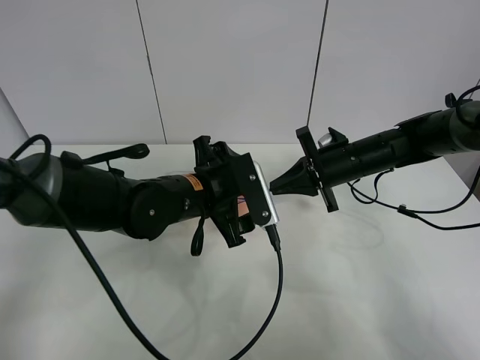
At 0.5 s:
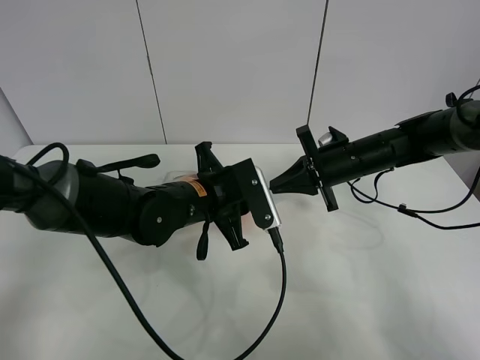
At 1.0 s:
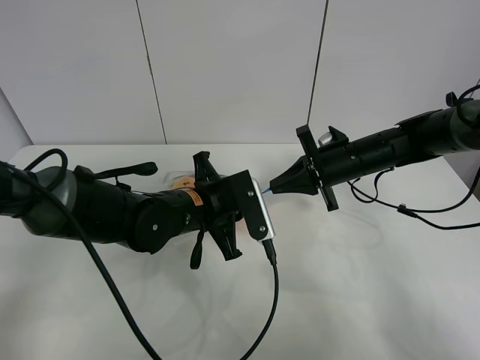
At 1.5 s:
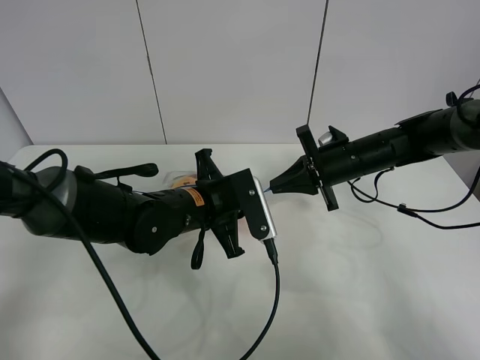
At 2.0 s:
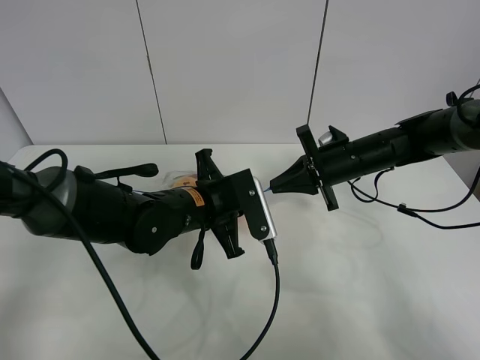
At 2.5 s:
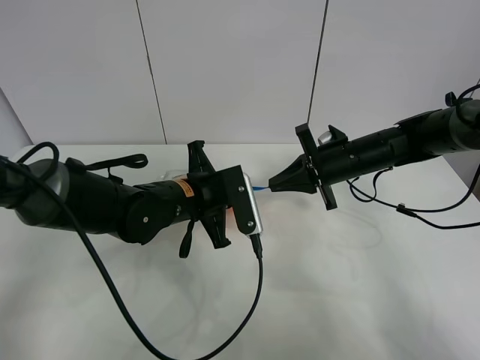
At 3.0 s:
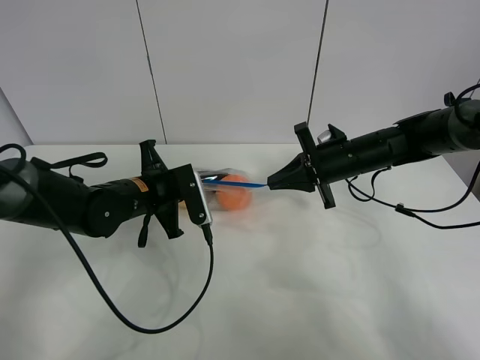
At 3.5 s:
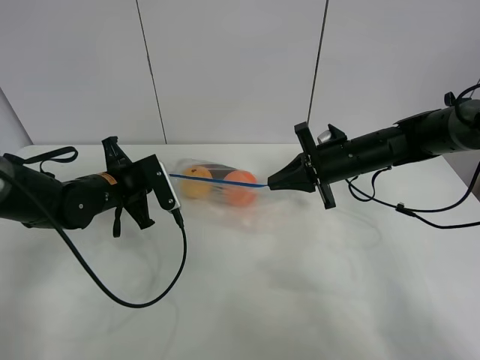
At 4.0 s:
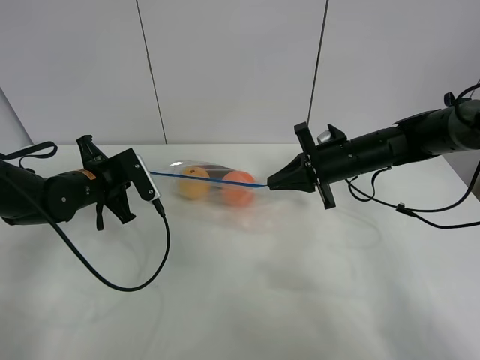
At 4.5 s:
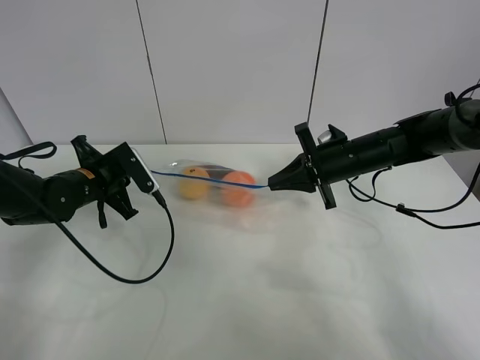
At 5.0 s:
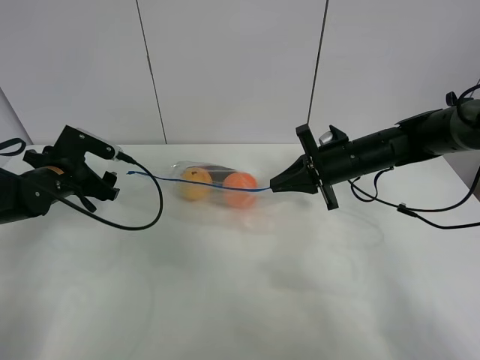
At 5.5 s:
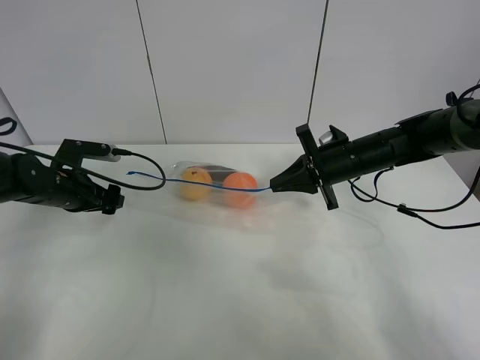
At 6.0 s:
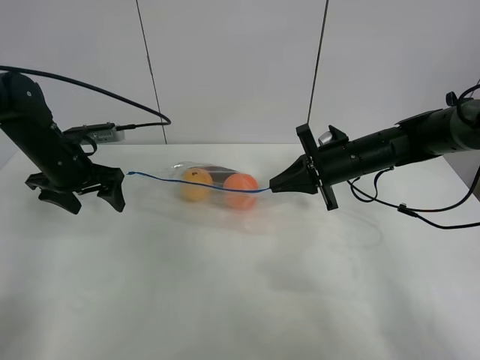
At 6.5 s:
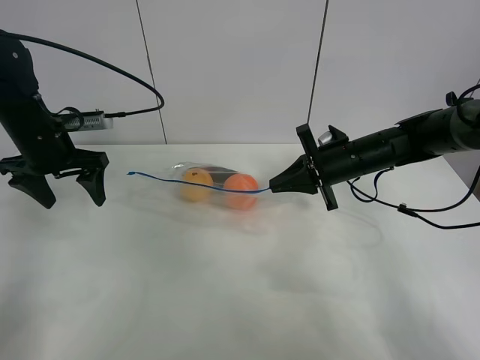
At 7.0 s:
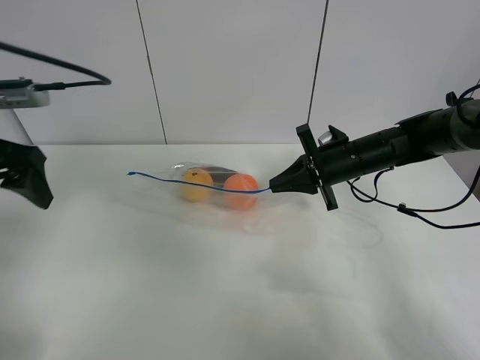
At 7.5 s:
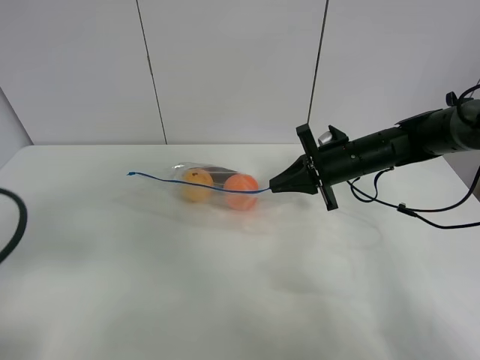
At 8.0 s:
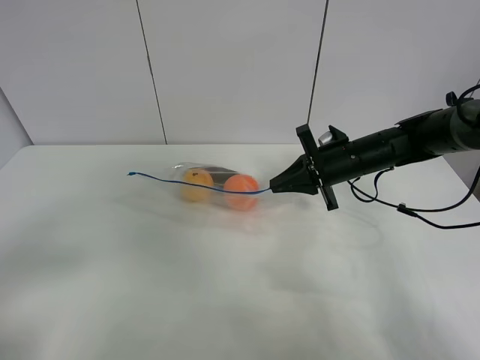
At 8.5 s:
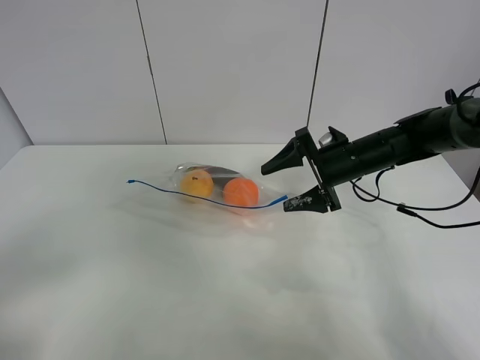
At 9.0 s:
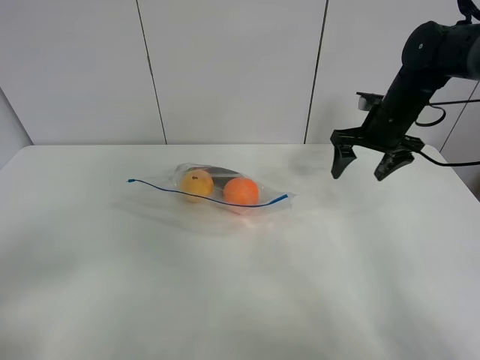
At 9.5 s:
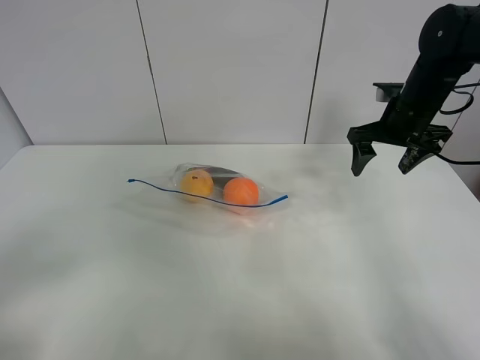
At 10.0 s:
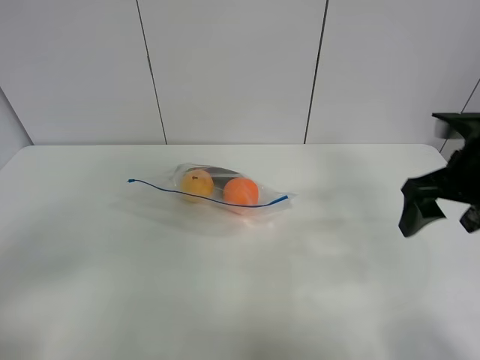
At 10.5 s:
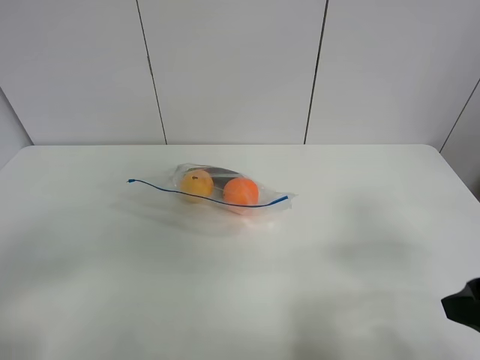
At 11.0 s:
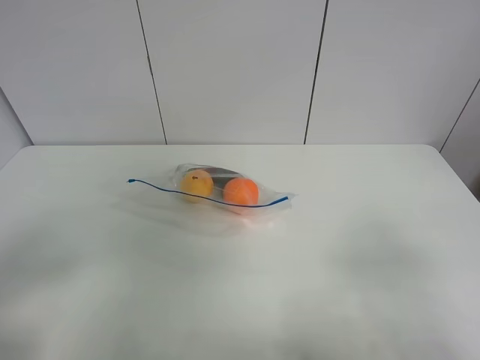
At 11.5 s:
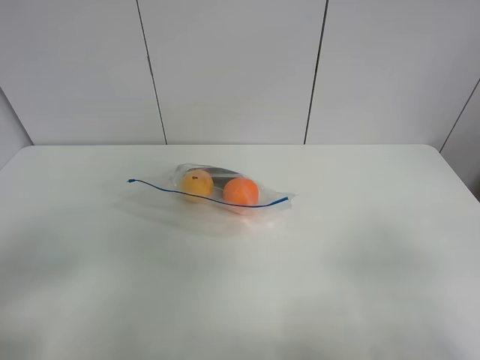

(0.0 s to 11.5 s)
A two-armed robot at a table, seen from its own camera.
Step, 0.0 s - 4.5 s: Pull the fruit bag with left gripper.
0.0 s - 2.0 s: The left gripper closes its fingers.
2.0 s - 4.0 s: The left gripper moves to the left, some 20 cm.
4.0 s - 6.0 s: The left gripper changes place by some 5 cm, and opens its fingers.
6.0 s - 7.5 s: The left gripper moves backward, some 25 cm.
7.5 s - 9.5 s: The left gripper shifts roughly 10 cm backward; the right gripper moves upward and to the right, roughly 10 cm, and opens its fingers.
9.5 s - 11.5 s: The right gripper heads backward, covering roughly 40 cm.

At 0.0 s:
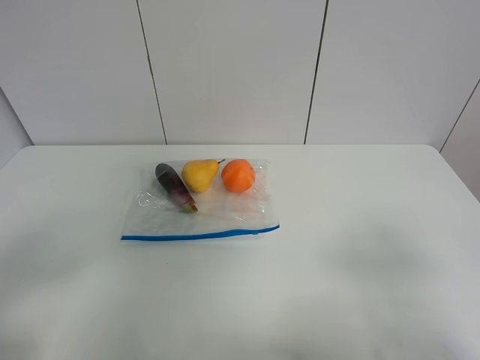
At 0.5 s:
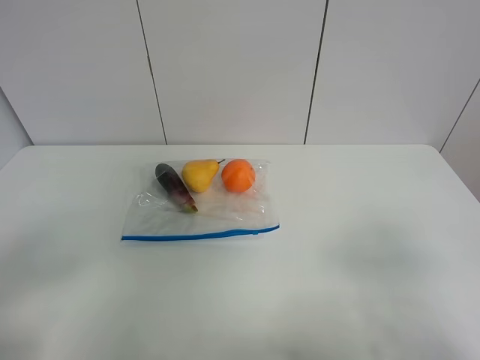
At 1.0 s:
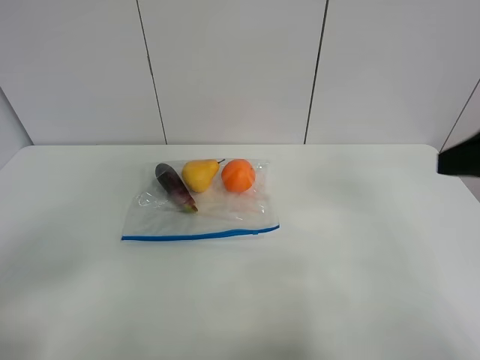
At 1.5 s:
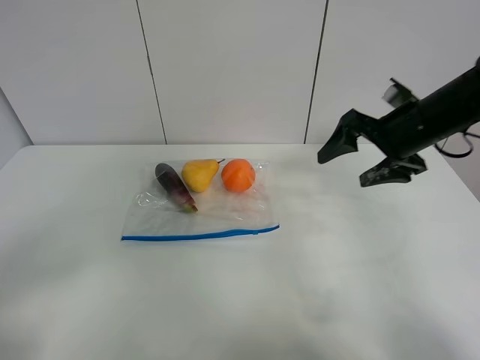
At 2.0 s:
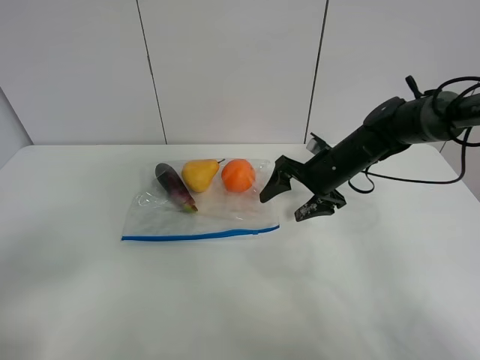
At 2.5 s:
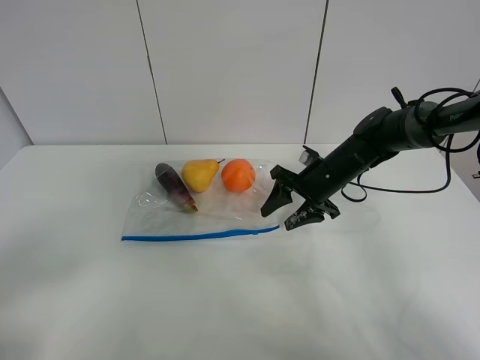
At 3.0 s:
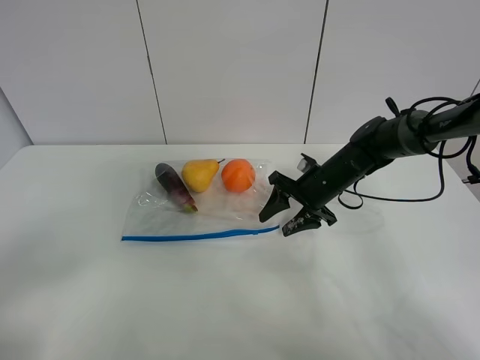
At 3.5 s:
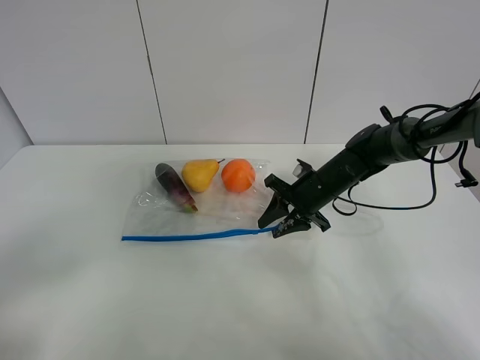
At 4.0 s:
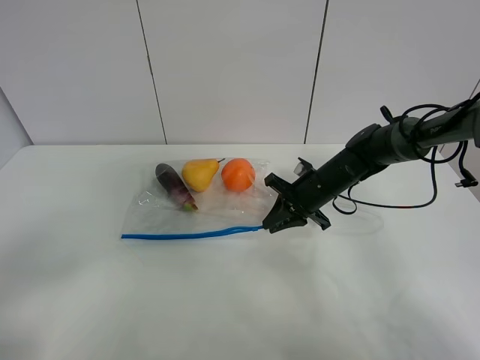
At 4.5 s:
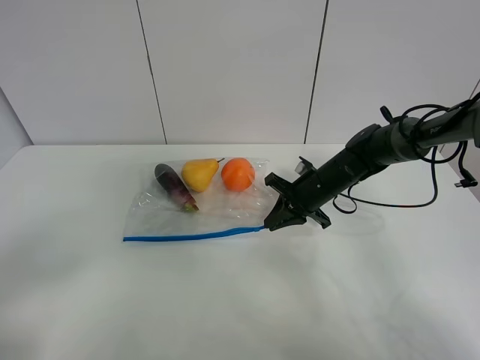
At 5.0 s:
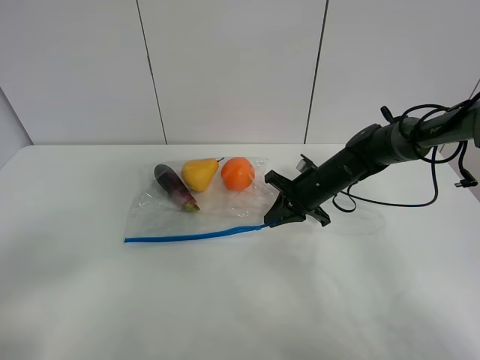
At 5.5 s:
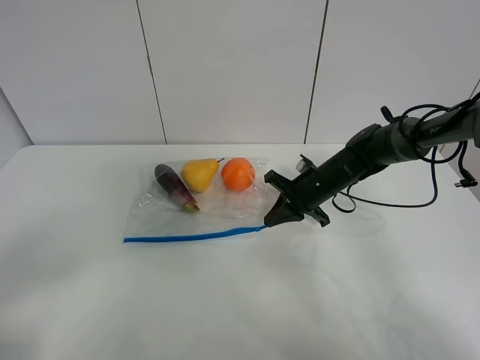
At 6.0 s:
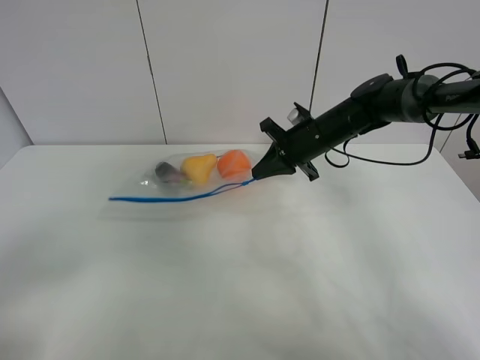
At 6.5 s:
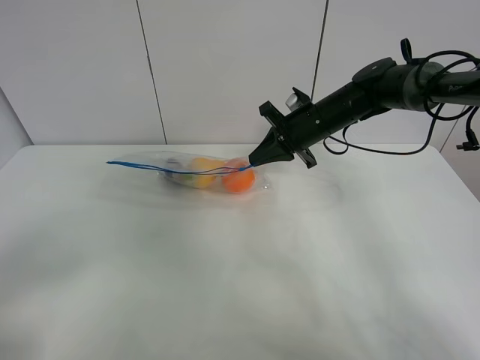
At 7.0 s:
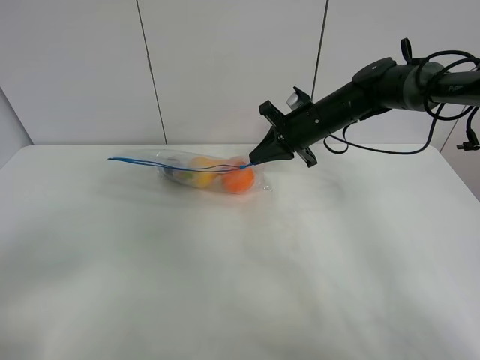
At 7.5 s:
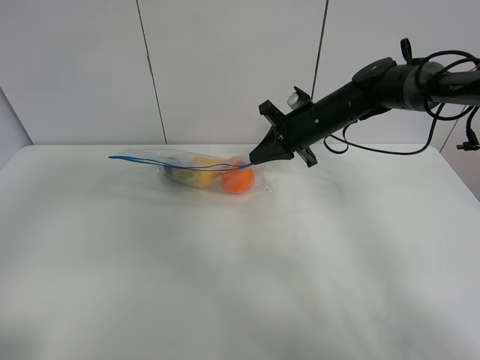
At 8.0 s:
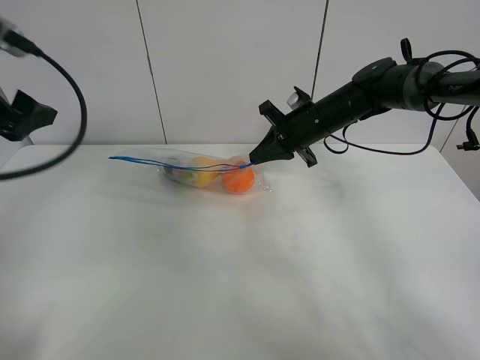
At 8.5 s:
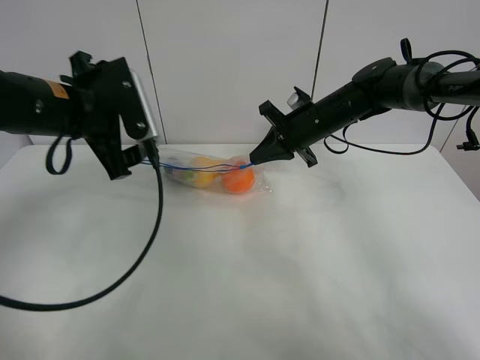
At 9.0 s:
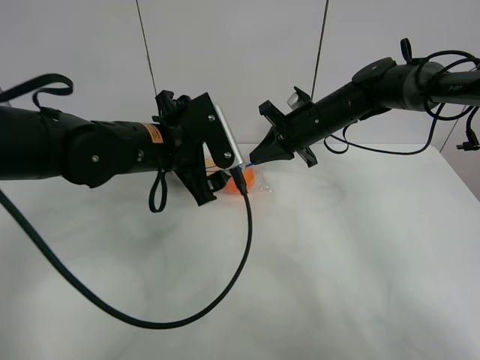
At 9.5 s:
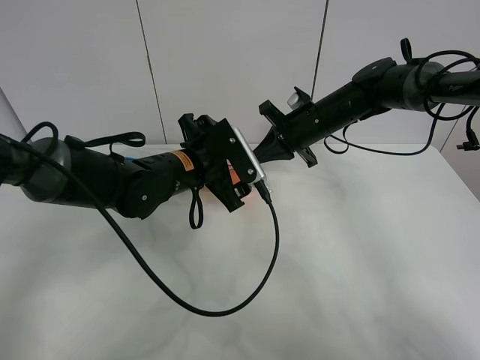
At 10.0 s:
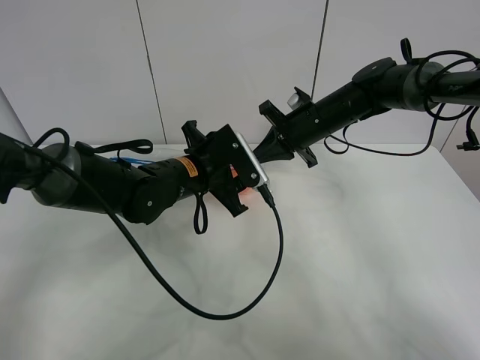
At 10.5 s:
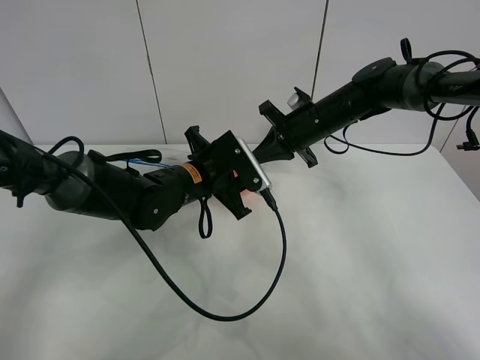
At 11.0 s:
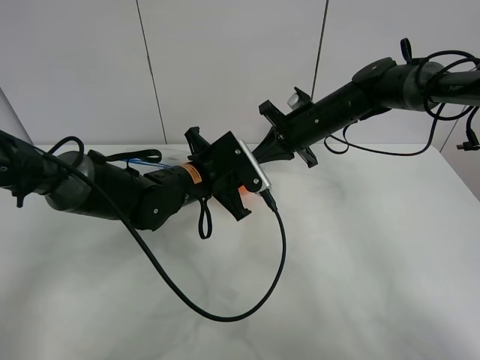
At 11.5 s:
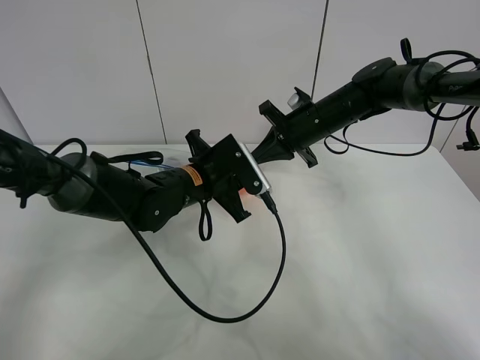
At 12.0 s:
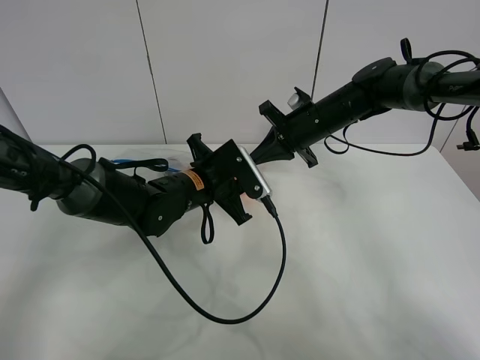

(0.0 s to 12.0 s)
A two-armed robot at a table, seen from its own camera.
Step, 0.0 s - 5.0 s: Grasp the fruit bag with right gripper.
Step, 5.5 s - 6.5 s: Lift the fruit bag with your right gripper.
0.0 s - 2.0 s: The right gripper travels forward by approximately 40 cm.
2.0 s - 4.0 s: The right gripper closes.
4.0 s - 6.0 s: The right gripper is displaced upward by roughly 10 cm.
6.0 s - 8.0 s: The left gripper shifts about 25 cm forward.
8.0 s - 10.0 s: The left gripper is displaced to the right and downward by about 30 cm, and closes up.
10.0 s - 12.0 s: The grippers make only small movements.

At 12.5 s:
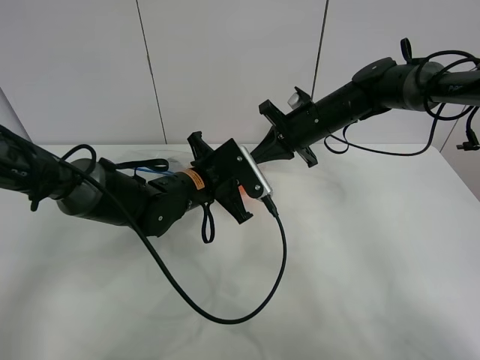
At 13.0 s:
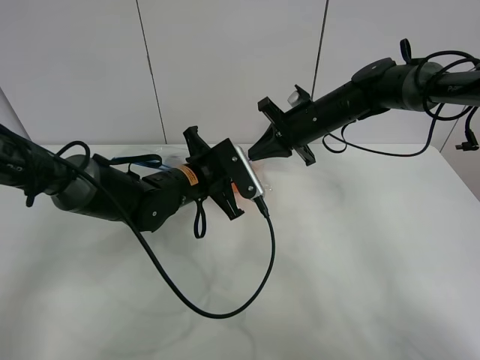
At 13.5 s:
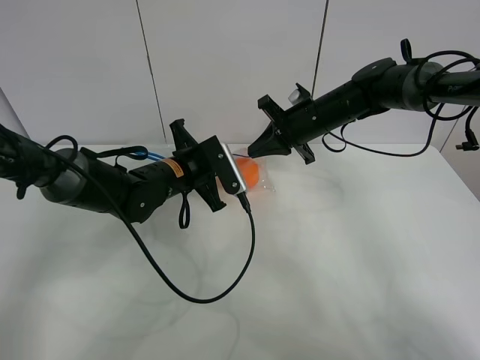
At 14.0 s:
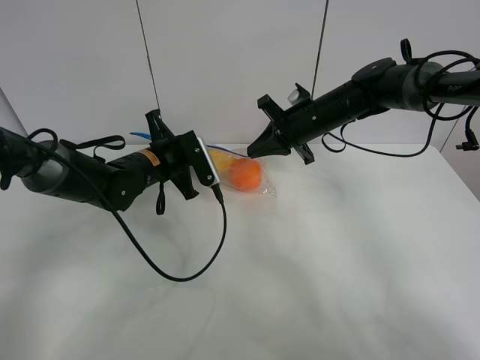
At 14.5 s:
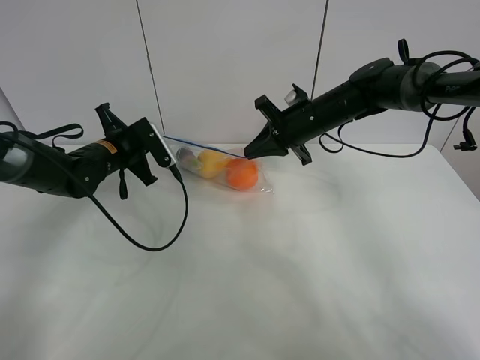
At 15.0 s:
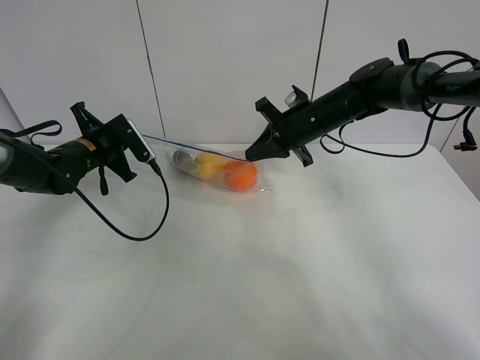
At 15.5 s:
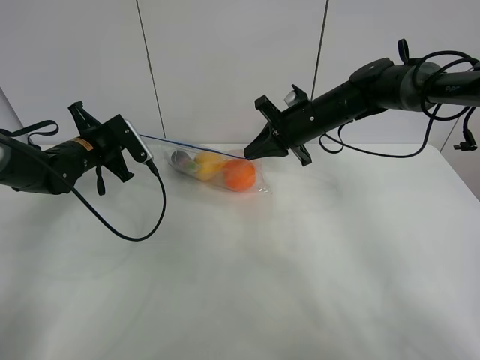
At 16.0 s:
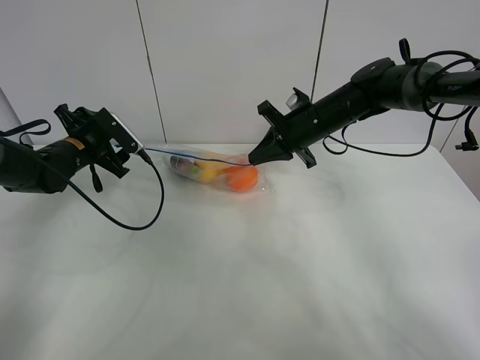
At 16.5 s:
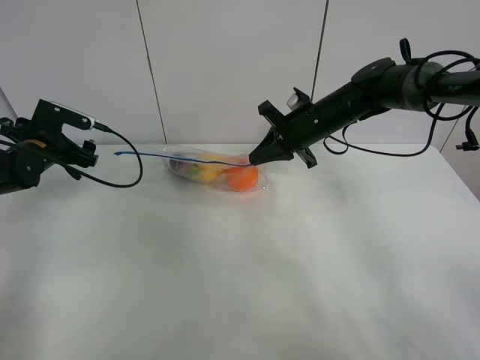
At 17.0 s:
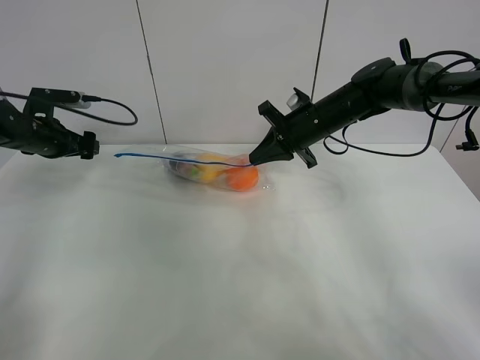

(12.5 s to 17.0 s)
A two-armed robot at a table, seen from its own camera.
Step, 12.5 s - 16.0 s: Pull the fruit bag with left gripper.
12.5 s - 14.5 s: The left gripper is displaced to the left and forward by roughly 20 cm.
14.5 s - 17.0 s: The left gripper shifts about 15 cm to the left, and opens.
